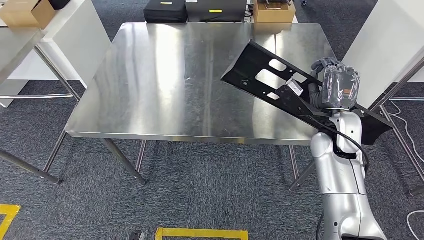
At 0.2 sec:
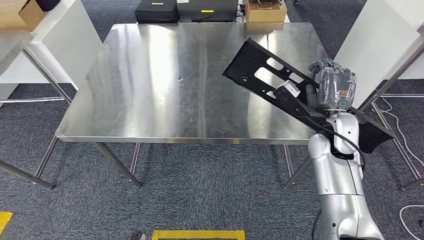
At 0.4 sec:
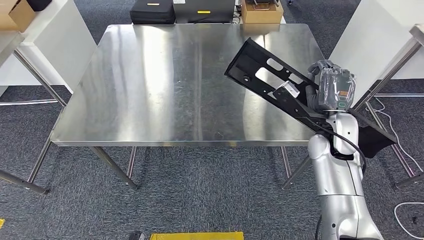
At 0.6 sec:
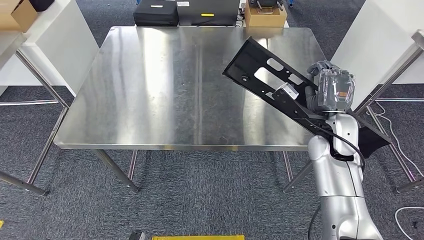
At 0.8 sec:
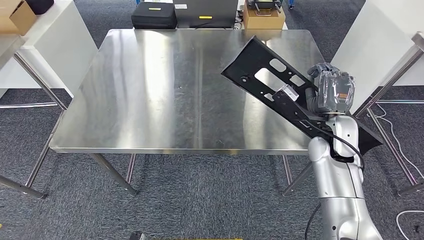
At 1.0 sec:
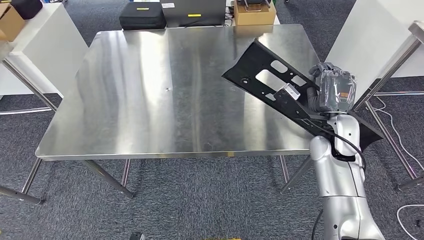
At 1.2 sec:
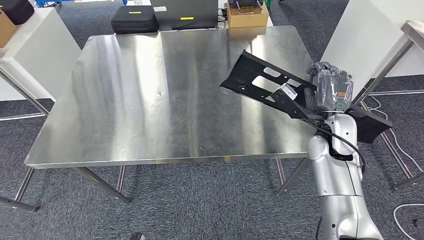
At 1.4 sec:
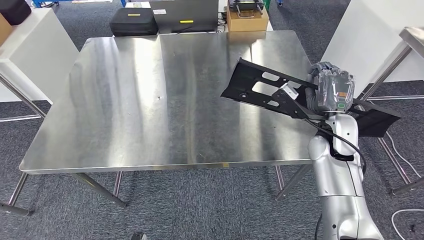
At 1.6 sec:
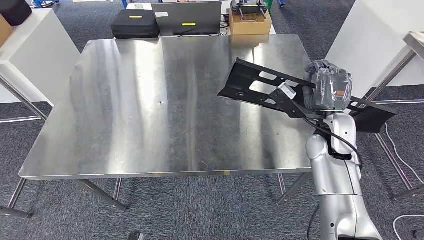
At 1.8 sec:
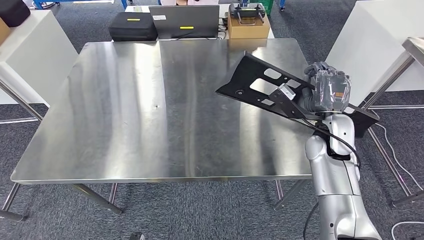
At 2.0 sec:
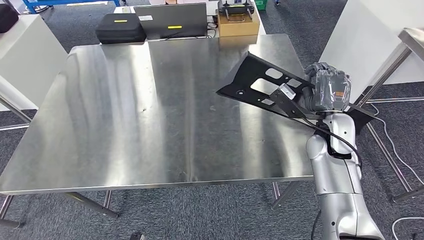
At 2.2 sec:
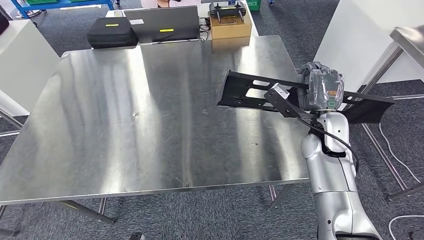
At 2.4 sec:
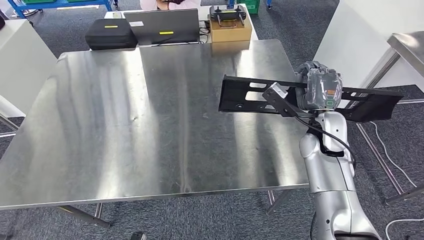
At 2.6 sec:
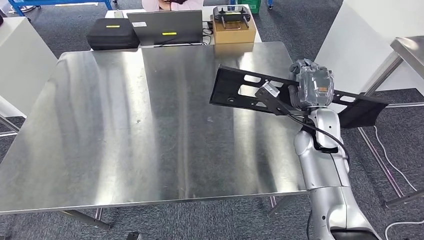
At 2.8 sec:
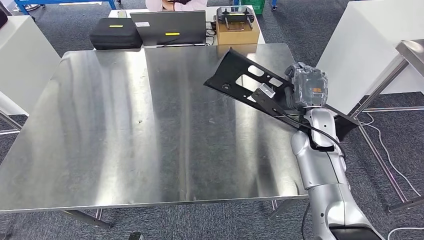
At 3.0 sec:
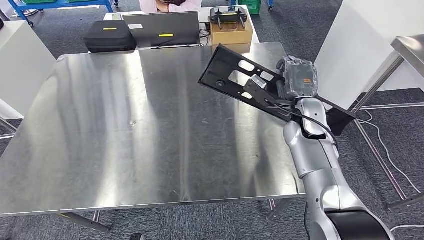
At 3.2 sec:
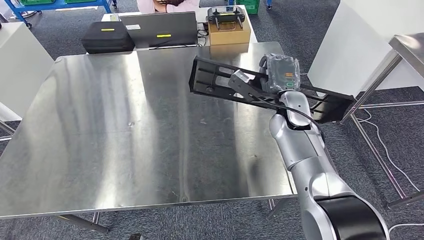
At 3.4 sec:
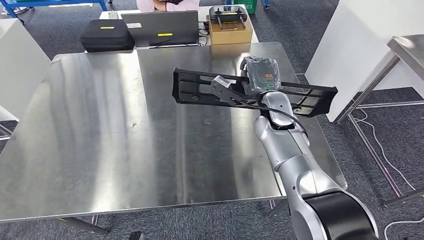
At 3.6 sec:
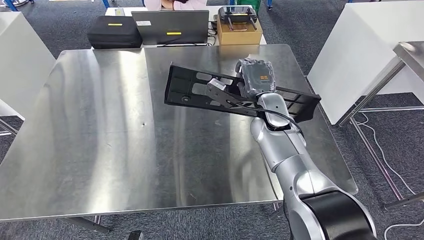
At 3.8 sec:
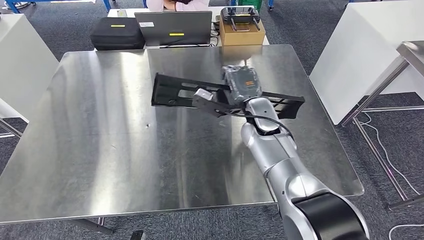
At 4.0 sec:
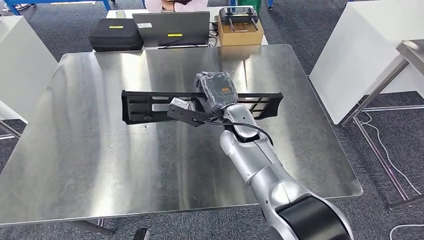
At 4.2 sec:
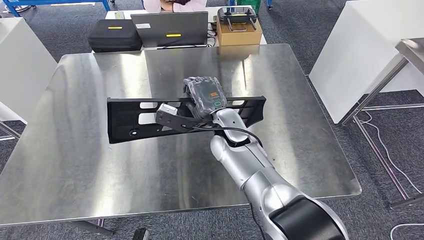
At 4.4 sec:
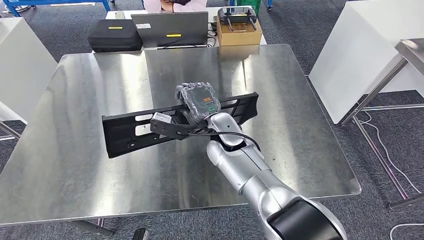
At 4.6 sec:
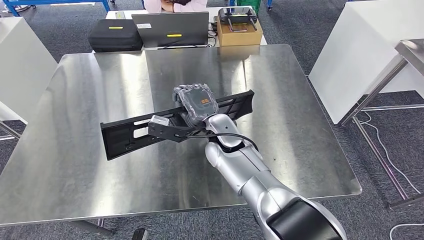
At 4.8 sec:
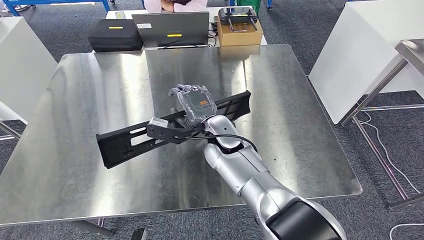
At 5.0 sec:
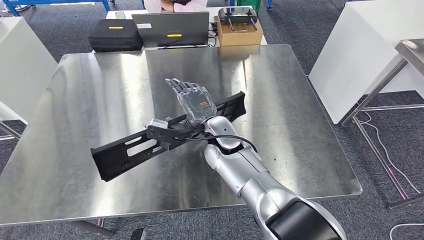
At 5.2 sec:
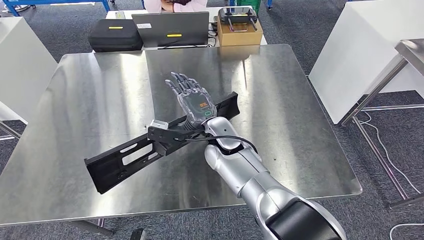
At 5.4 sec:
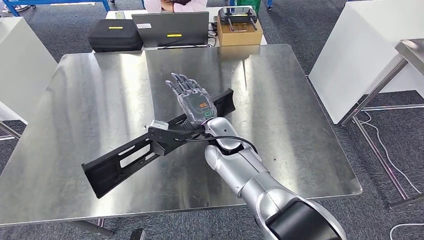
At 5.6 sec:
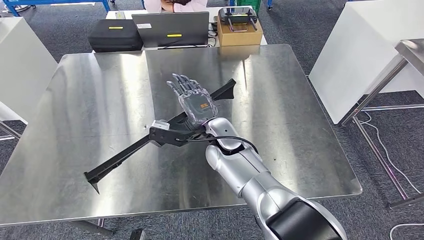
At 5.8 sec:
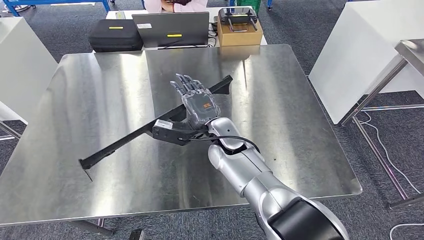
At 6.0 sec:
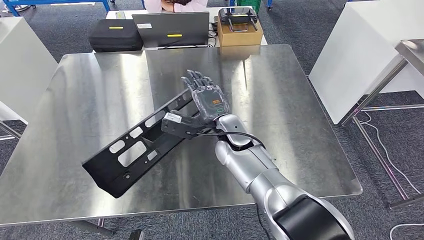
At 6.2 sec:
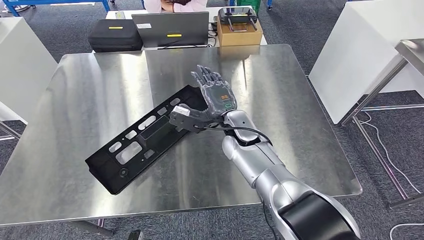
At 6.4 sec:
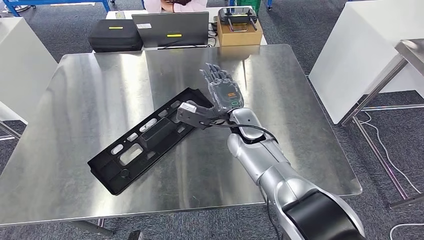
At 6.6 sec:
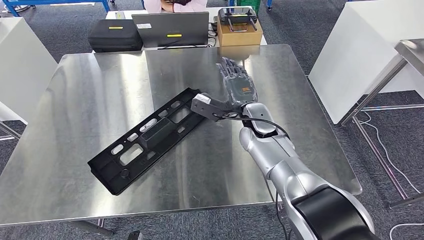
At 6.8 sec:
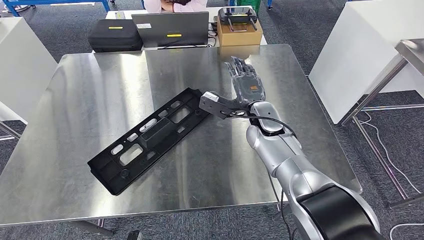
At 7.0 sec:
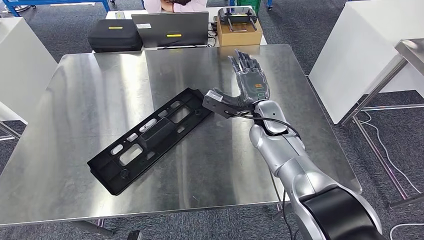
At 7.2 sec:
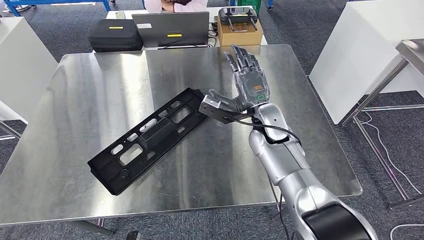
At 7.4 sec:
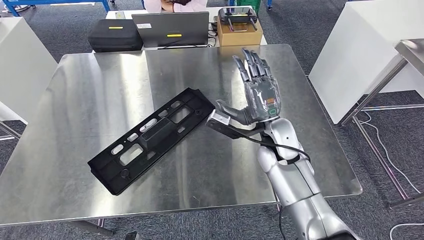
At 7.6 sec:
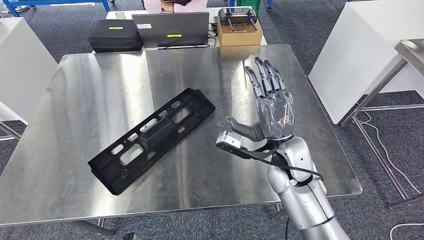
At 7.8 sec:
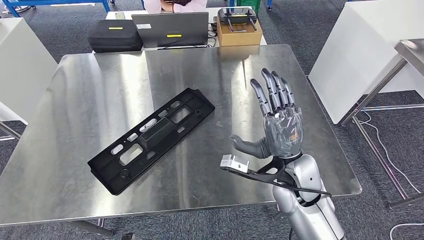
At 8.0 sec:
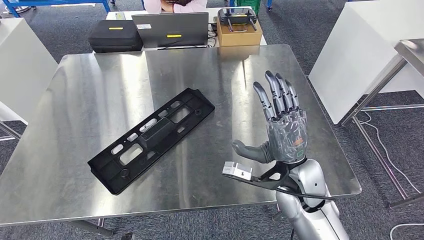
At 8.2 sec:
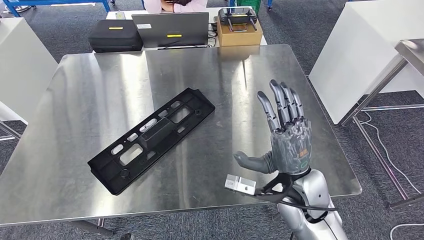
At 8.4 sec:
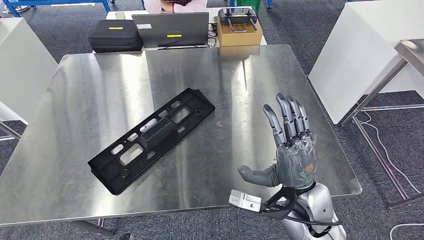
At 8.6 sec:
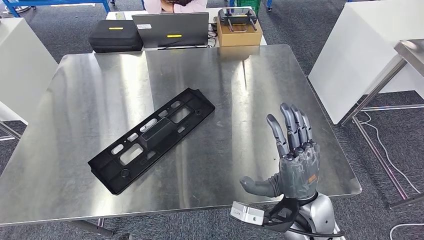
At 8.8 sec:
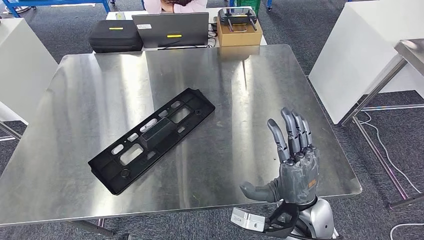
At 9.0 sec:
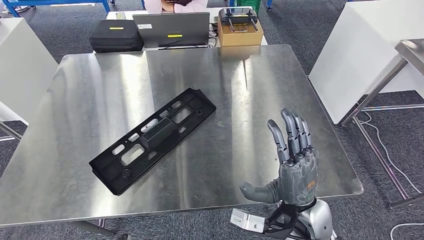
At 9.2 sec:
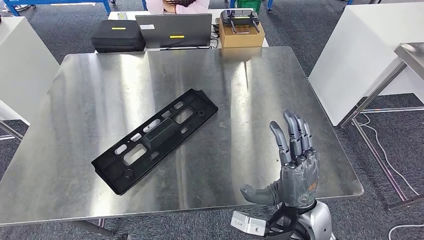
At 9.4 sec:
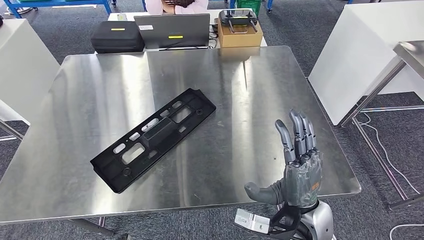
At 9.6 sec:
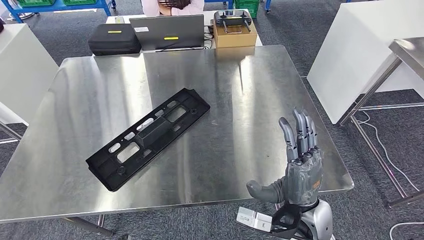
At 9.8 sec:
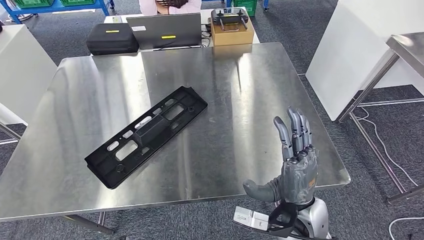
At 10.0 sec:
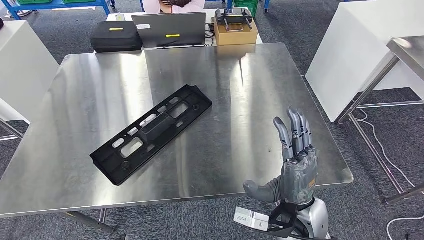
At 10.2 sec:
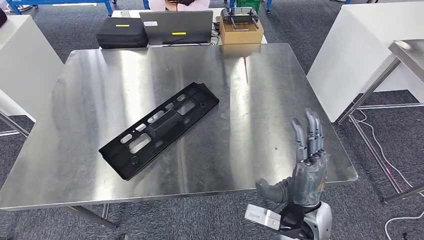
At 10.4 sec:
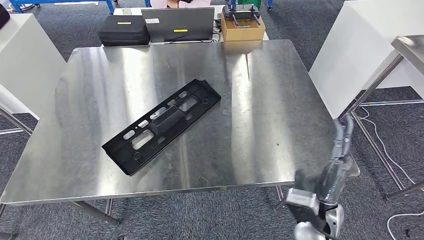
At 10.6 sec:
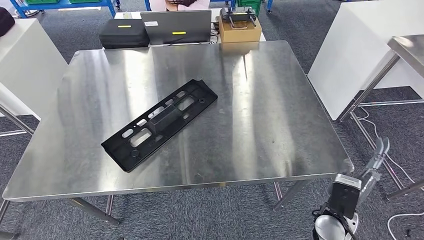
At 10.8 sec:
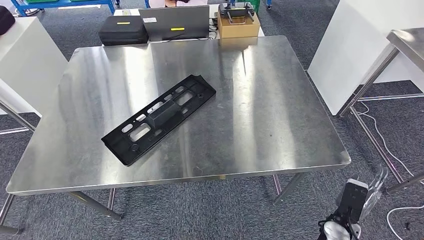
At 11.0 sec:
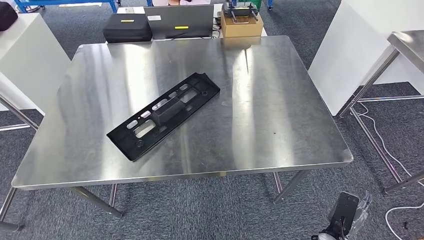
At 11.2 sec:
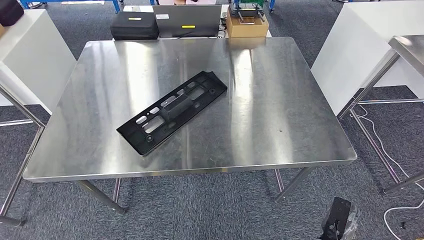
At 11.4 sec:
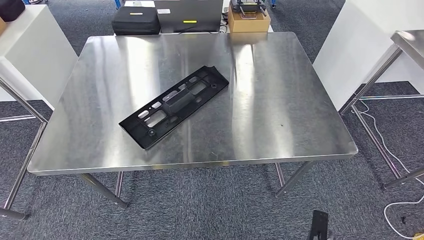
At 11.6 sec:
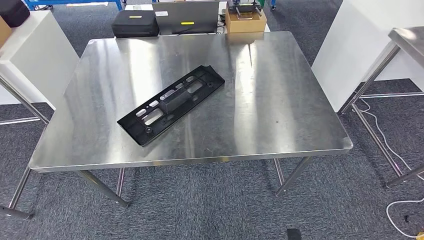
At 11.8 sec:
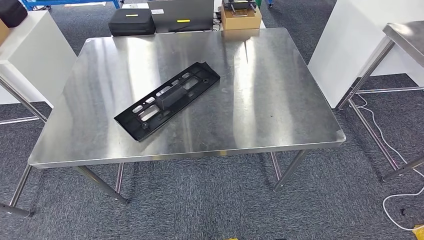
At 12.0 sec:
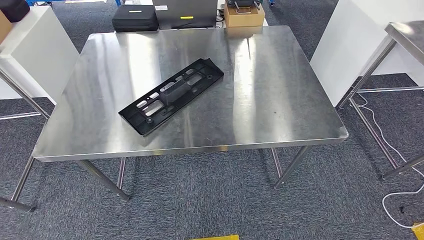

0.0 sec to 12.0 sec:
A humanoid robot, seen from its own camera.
4.4 sec to 6.0 sec: The hands stay close to where they were, moving slightly.
6.0 sec to 7.6 sec: The right hand goes roughly 15 cm to the right and backward.
7.6 sec to 9.0 sec: The right hand travels backward by about 10 cm.

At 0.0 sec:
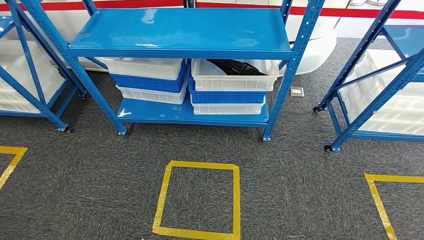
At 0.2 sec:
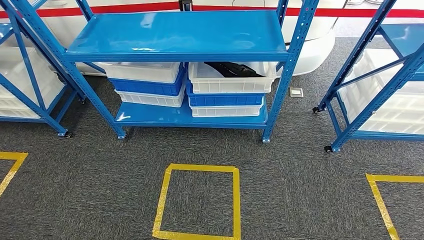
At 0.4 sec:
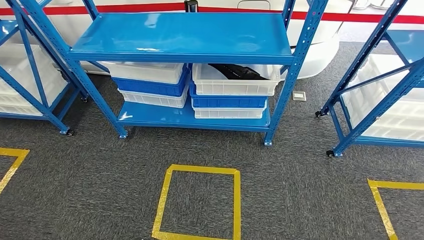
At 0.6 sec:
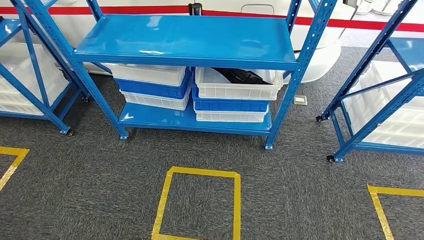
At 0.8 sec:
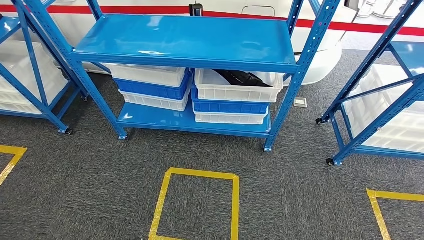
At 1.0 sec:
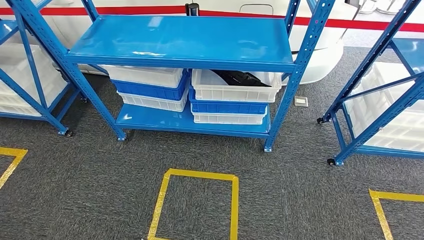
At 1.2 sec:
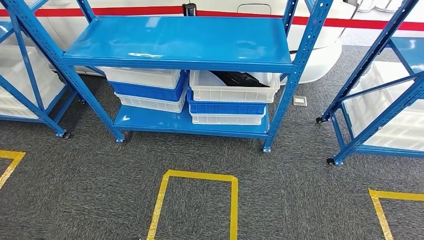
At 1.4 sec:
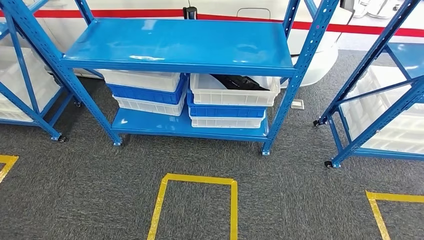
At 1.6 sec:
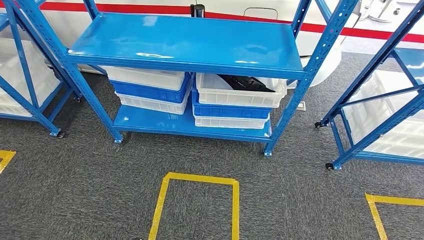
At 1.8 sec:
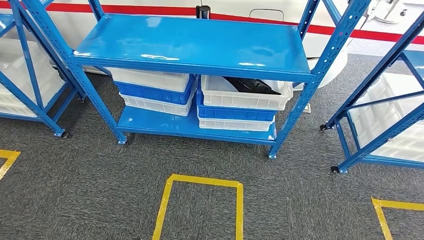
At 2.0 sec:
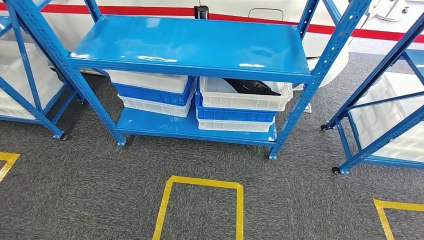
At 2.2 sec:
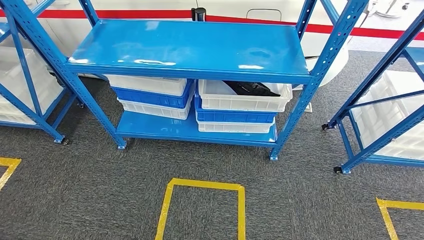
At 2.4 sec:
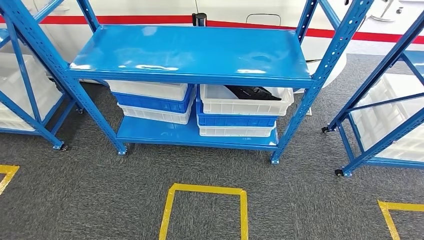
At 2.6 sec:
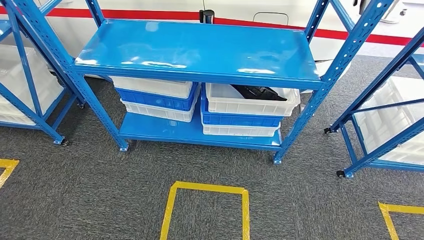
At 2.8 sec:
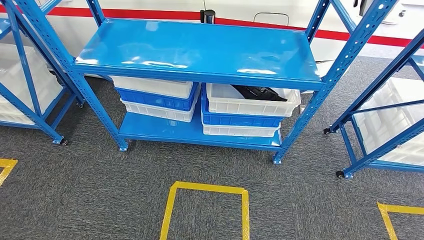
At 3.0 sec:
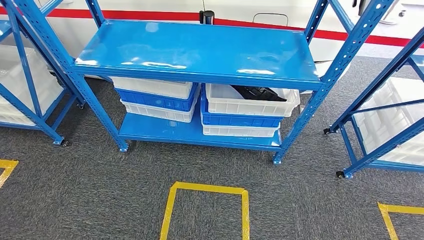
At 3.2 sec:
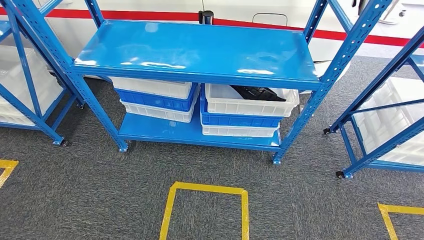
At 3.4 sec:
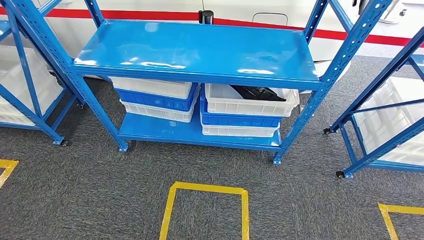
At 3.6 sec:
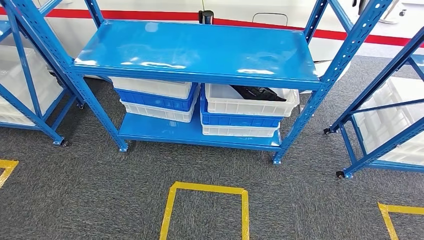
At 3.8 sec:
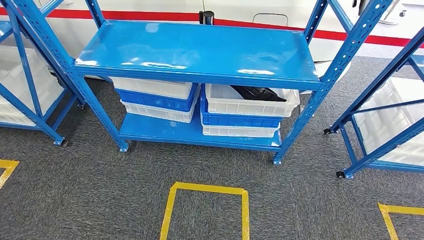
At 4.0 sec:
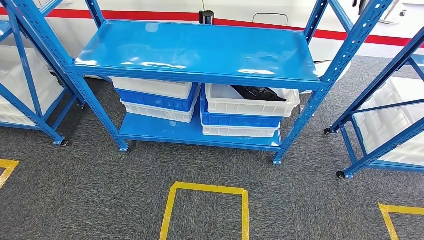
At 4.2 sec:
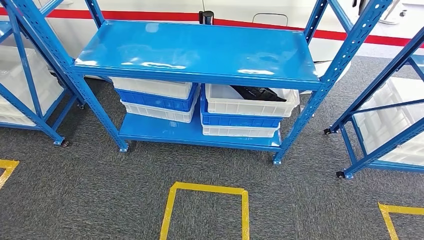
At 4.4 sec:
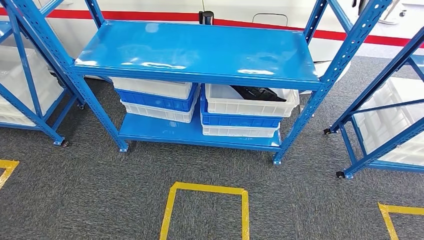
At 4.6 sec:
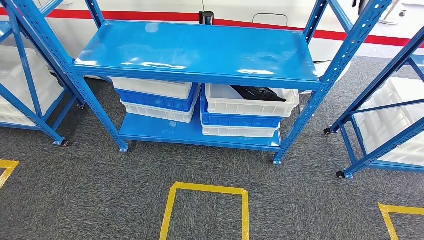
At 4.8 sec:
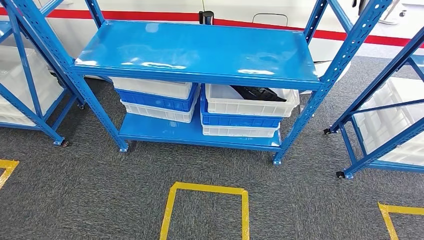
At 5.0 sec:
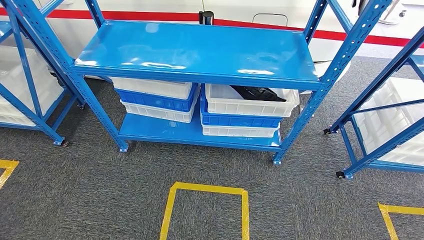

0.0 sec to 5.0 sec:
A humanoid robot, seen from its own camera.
Step, 0.0 sec to 5.0 sec: Return to the initial position at the shelf.
3.4 sec to 5.0 sec: The left hand heads to the left and backward, covering some 10 cm; the right hand changes place by about 5 cm.
